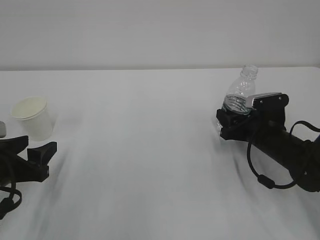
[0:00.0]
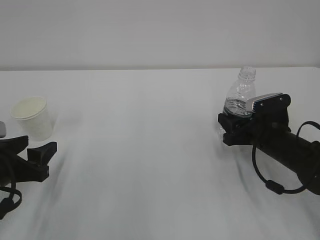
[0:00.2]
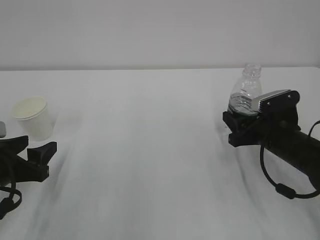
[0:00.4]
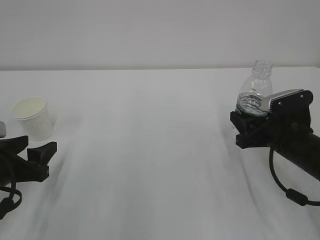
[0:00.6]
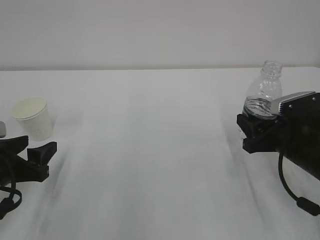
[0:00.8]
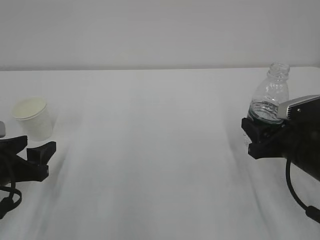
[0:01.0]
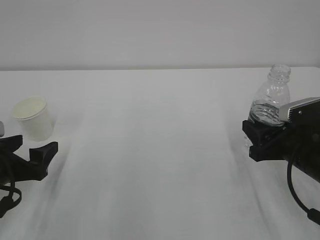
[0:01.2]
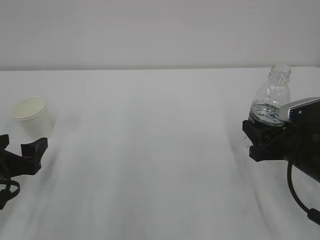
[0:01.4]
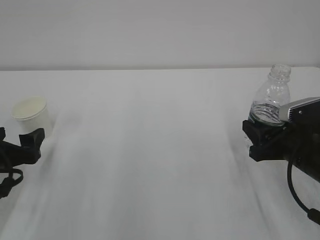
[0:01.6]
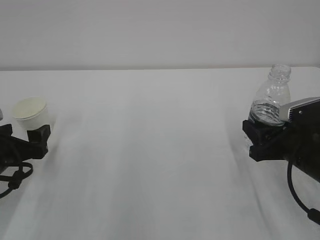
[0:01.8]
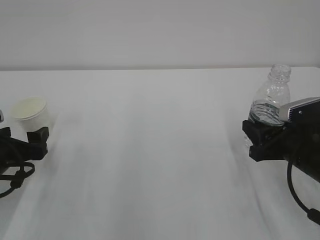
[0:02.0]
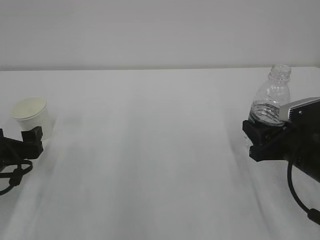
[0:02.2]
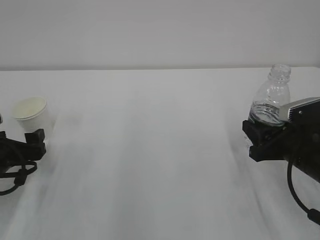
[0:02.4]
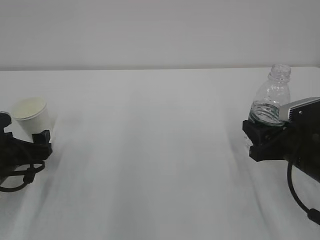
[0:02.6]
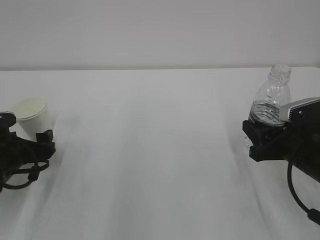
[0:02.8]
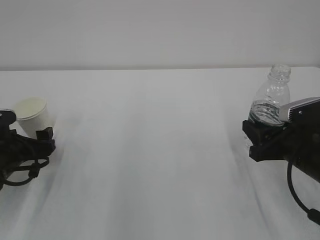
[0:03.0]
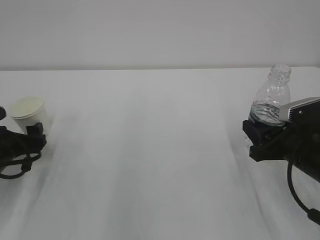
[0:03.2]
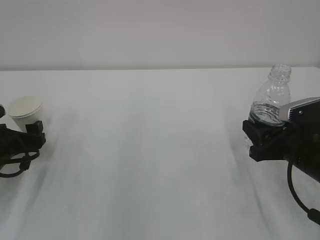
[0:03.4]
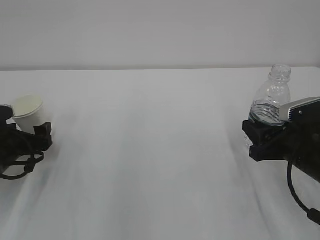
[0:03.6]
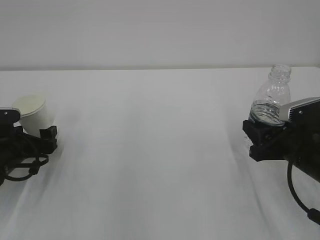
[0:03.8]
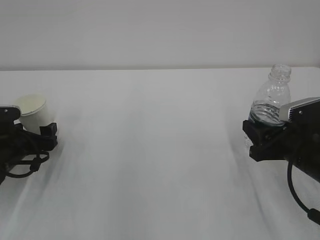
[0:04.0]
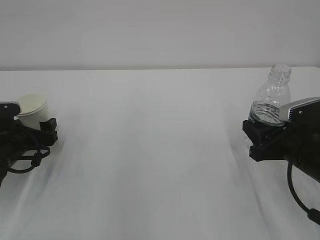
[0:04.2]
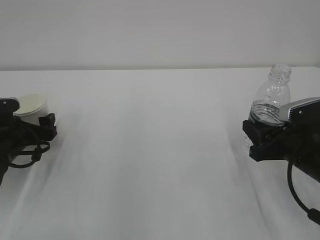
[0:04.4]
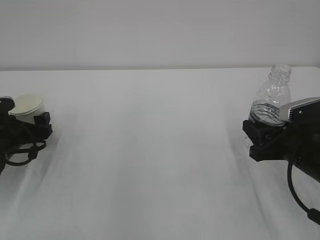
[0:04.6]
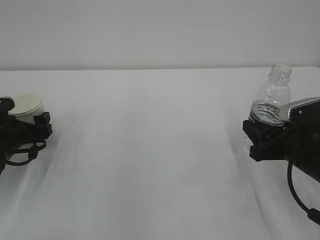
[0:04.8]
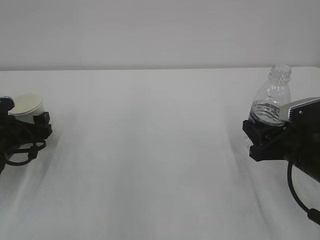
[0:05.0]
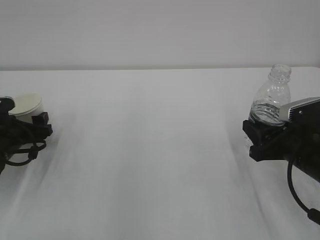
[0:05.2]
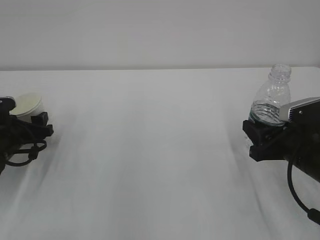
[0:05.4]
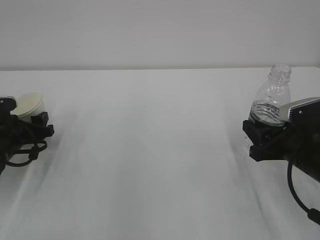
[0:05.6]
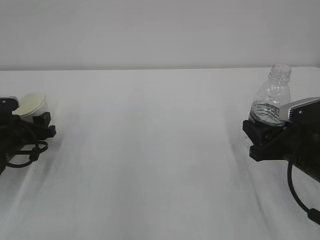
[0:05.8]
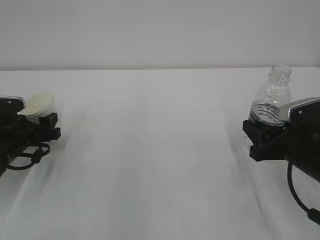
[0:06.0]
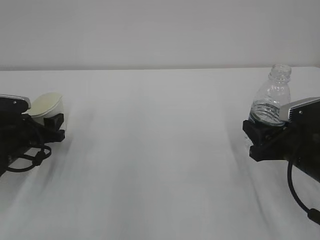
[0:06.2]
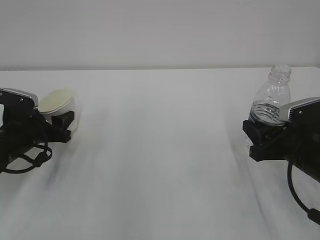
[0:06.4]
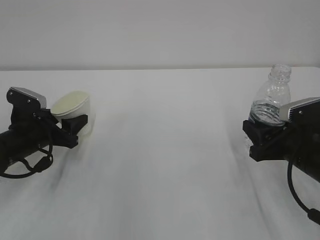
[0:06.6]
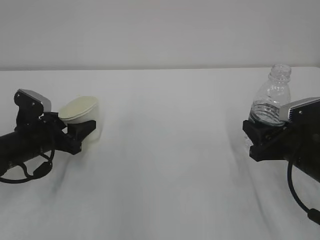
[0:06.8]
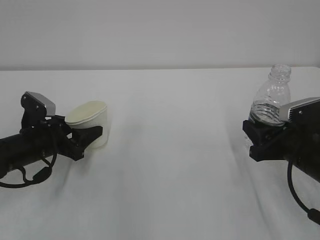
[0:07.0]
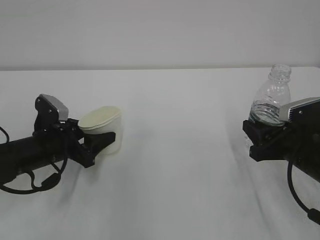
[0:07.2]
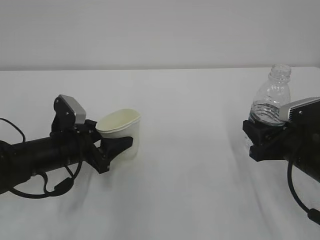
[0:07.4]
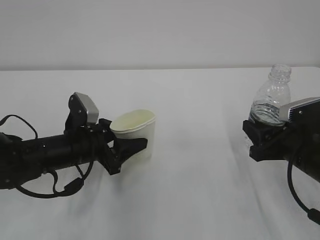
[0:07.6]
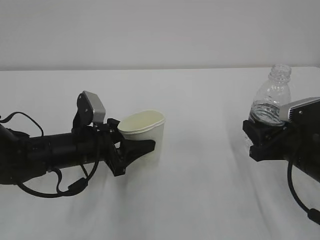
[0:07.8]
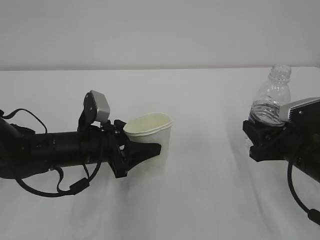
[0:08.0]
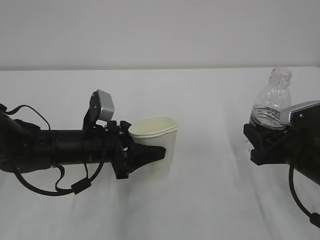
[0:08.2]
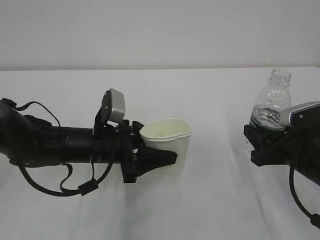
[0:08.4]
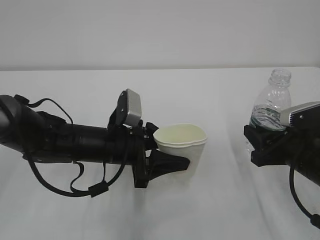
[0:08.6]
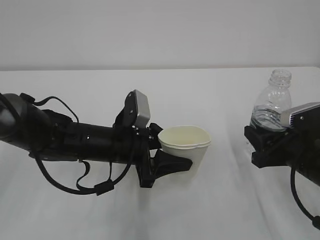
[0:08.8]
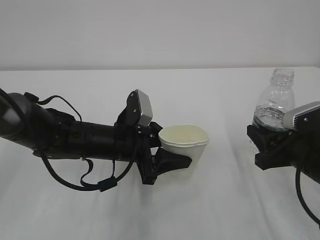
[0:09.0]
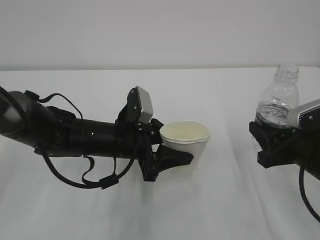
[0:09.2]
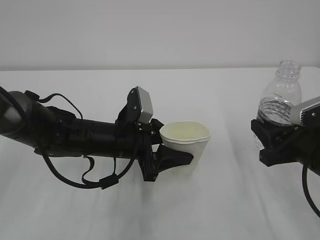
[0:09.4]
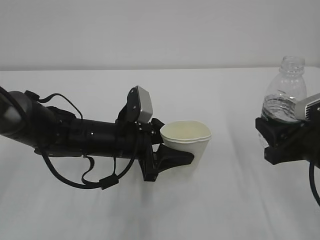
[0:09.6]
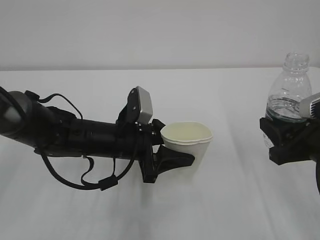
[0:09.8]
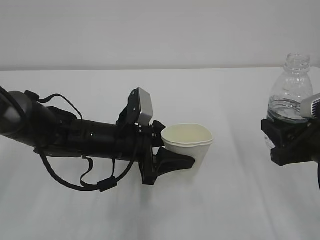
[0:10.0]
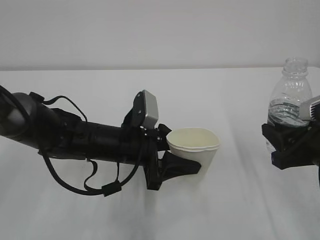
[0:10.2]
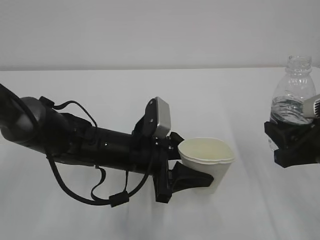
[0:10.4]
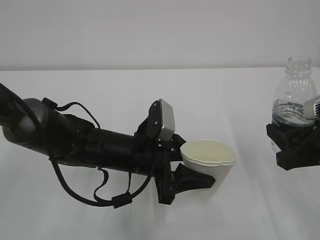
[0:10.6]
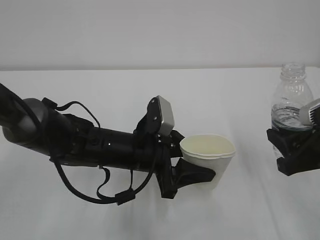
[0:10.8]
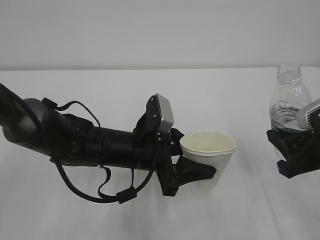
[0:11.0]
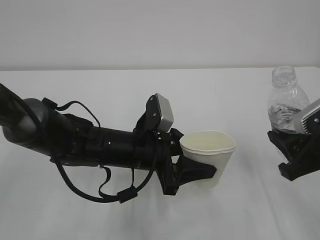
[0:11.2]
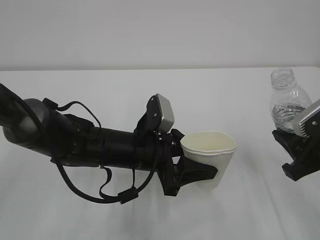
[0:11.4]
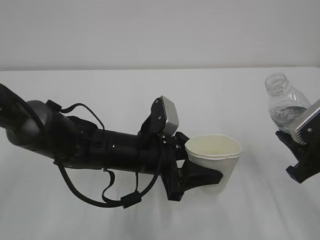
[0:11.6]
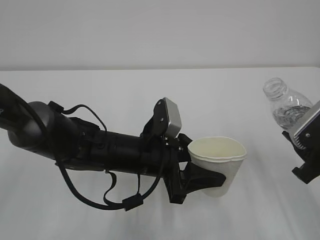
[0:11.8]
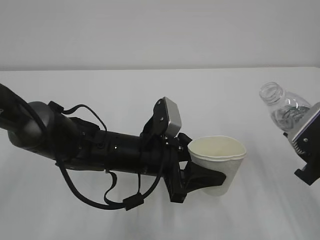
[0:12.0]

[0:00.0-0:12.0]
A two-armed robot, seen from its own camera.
0:00.0 to 0:01.6: The right gripper travels backward and upward by some 10 cm. Meanwhile the left gripper opens its fingers.
0:01.6 to 0:03.0: The left gripper travels forward by some 5 cm.
0:03.0 to 0:04.4: The grippers move only a little.
0:04.4 to 0:06.0: The left gripper closes.
0:06.0 to 0:07.6: The left gripper moves to the right, roughly 15 cm.
0:07.6 to 0:09.0: The left gripper heads to the right, covering roughly 10 cm.
0:09.0 to 0:10.4: The right gripper moves about 5 cm.

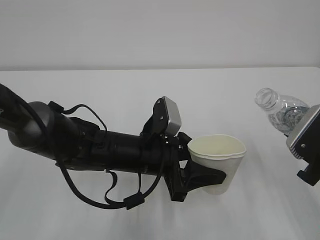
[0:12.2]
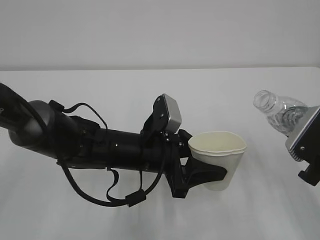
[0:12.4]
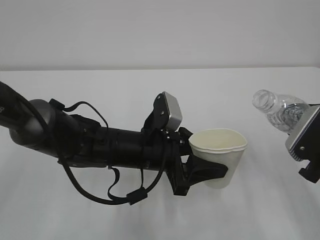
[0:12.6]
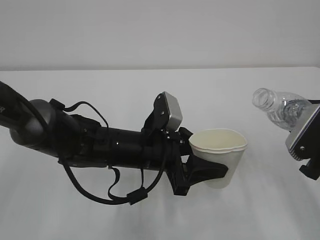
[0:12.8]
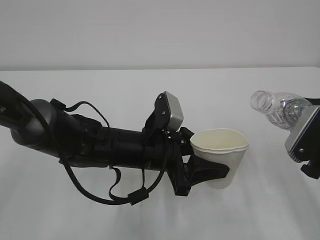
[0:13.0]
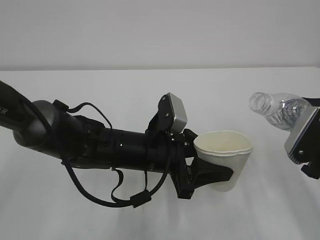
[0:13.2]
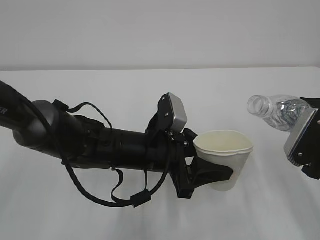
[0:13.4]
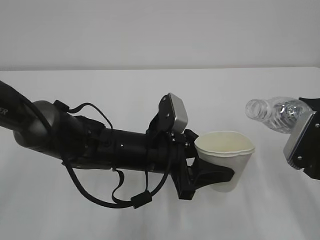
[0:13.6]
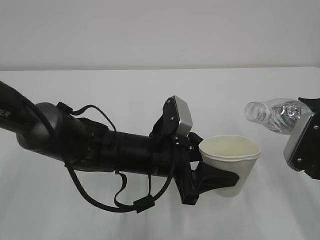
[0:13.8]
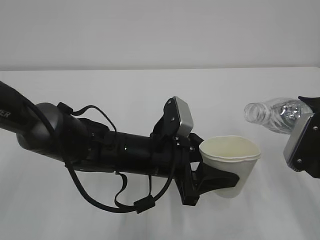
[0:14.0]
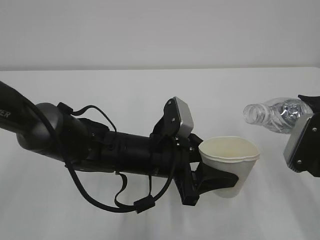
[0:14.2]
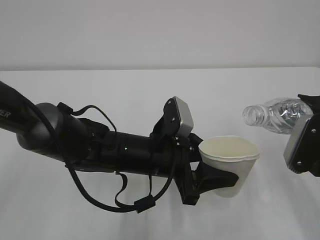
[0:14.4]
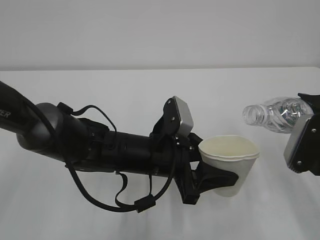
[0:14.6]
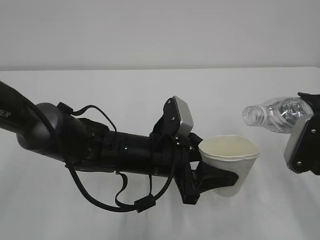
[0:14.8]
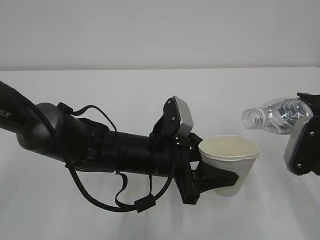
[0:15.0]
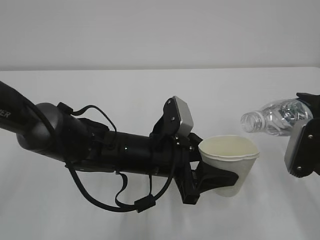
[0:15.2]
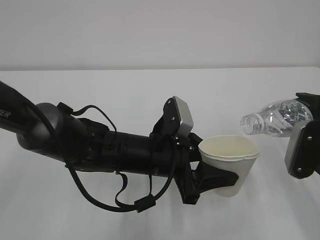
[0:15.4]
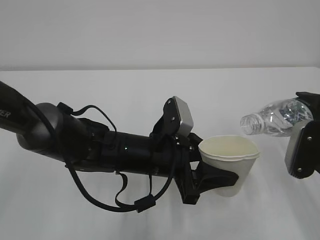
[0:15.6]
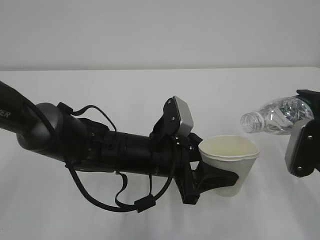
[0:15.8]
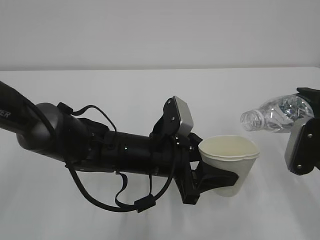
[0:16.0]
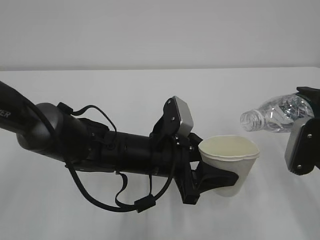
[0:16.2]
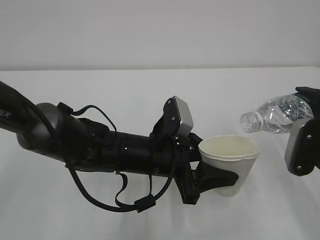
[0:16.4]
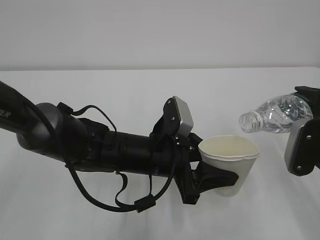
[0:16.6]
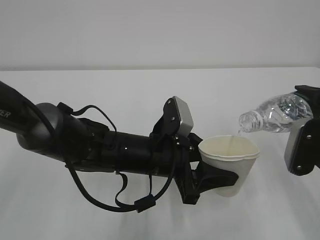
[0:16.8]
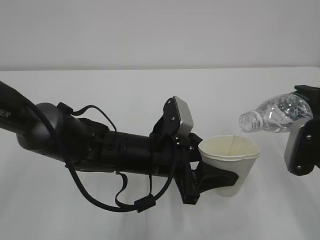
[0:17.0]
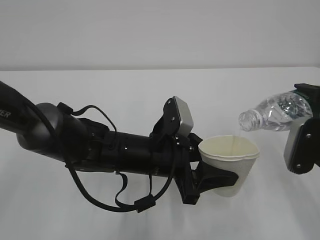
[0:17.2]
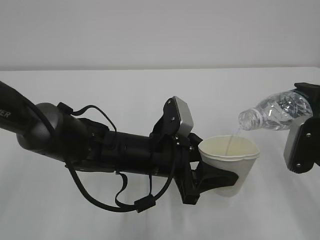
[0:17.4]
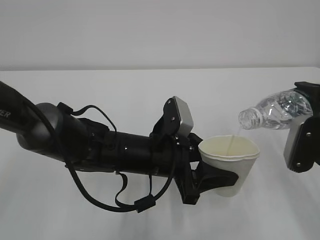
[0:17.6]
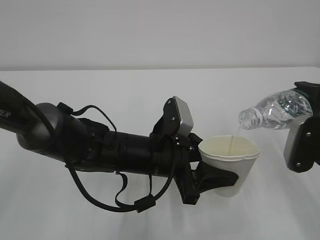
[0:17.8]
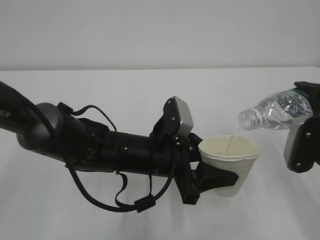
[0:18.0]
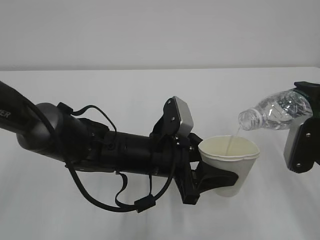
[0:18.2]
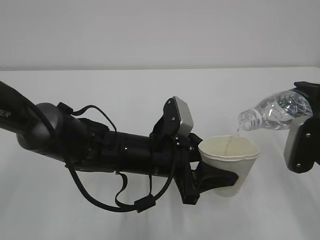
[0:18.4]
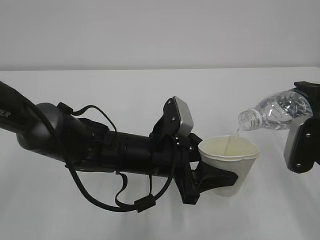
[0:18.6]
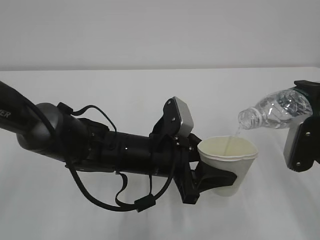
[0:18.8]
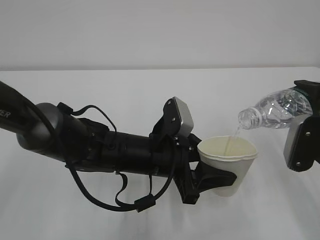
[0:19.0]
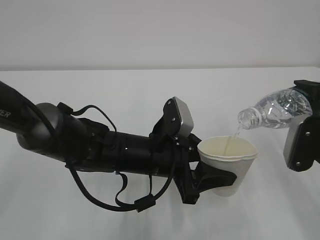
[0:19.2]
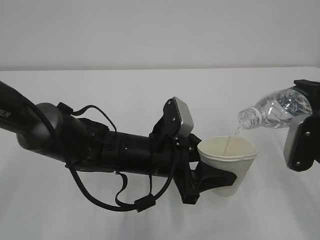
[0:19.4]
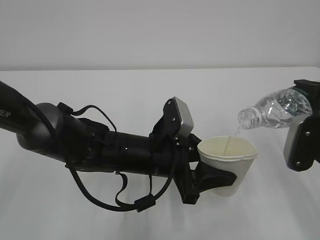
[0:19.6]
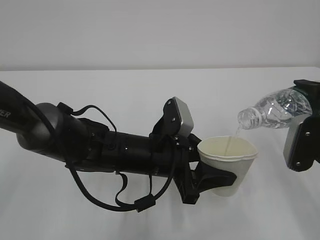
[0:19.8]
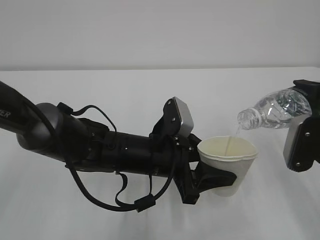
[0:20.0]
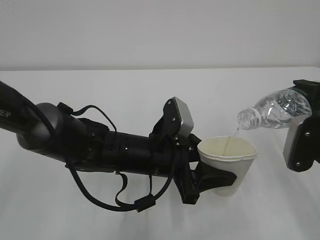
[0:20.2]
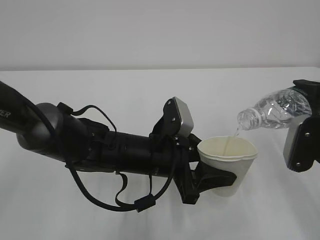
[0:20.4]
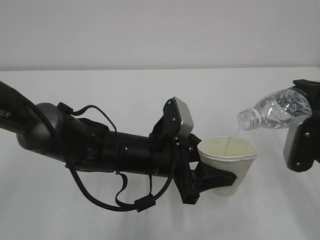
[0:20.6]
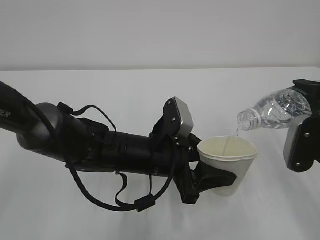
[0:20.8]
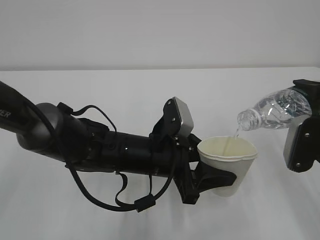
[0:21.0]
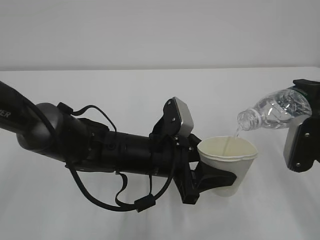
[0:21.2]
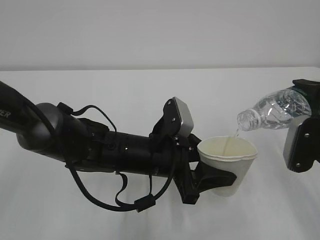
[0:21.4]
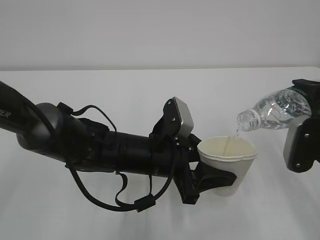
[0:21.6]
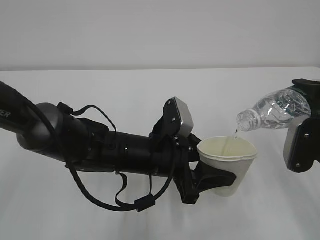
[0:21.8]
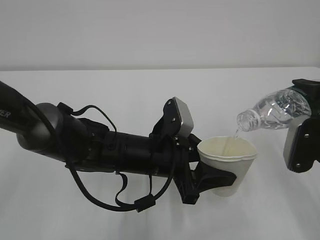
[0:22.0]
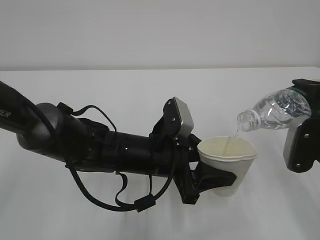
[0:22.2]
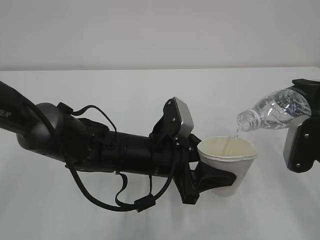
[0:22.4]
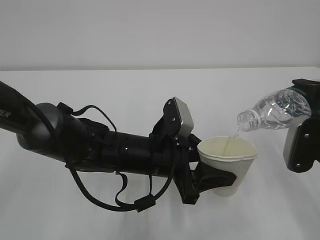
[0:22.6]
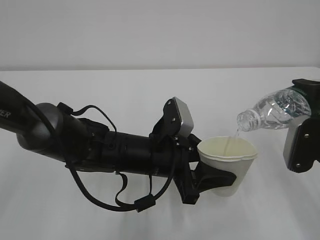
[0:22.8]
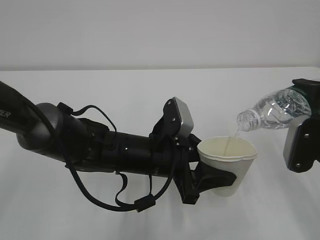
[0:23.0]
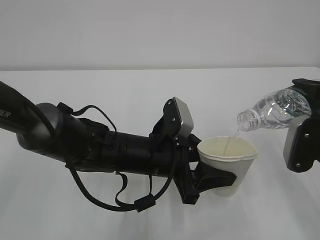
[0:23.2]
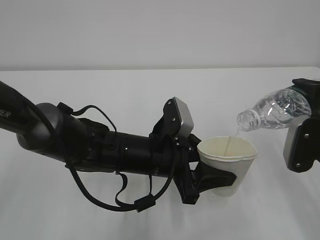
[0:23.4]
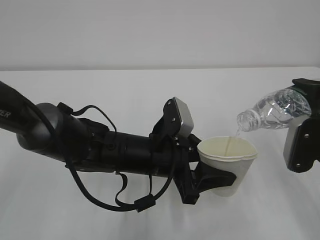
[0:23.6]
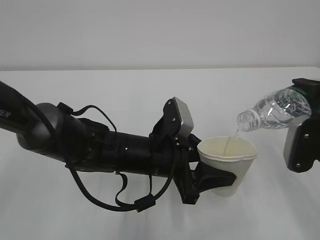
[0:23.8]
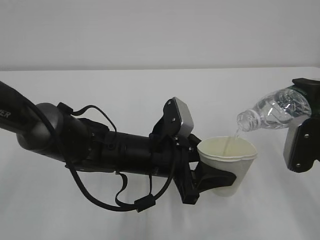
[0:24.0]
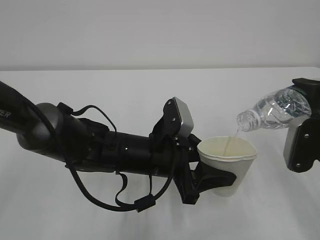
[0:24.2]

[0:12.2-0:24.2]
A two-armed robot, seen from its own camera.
0:12.2 to 0:13.8: The grippers move only a little.
0:13.8 to 0:16.6: The grippers move only a little.
0:16.6 to 0:22.6: Both grippers stay about where they are.
0:22.6 to 0:24.2: Both grippers stay about where they are.
